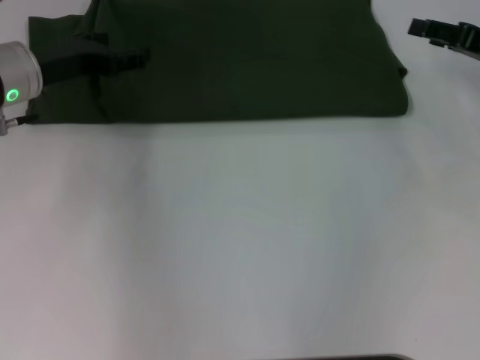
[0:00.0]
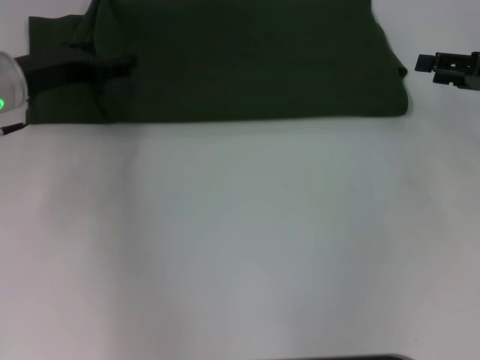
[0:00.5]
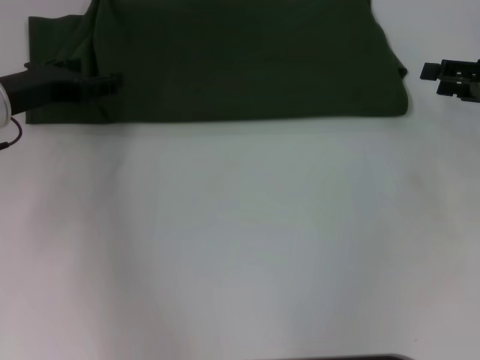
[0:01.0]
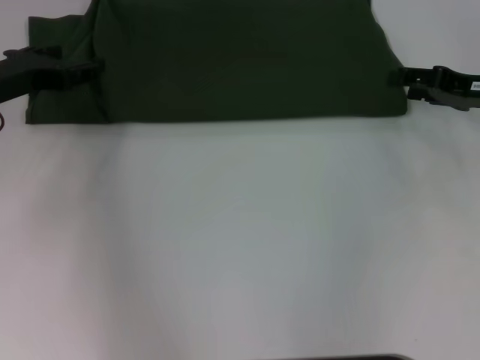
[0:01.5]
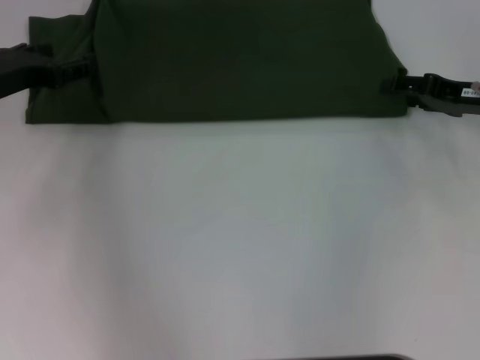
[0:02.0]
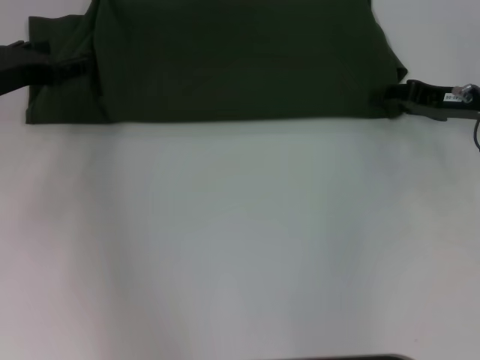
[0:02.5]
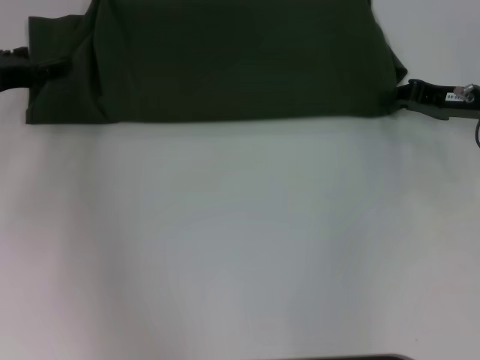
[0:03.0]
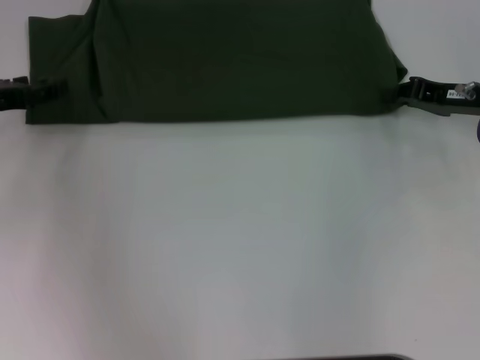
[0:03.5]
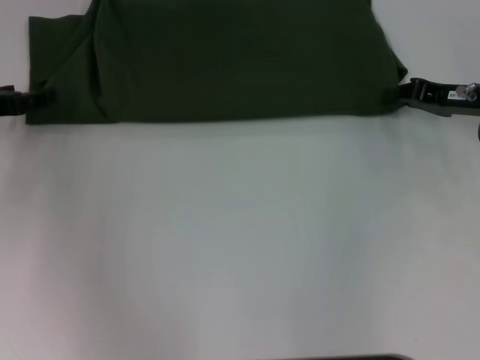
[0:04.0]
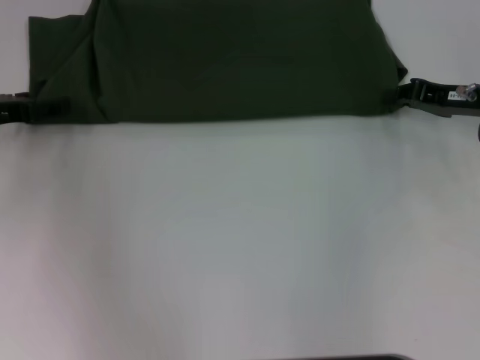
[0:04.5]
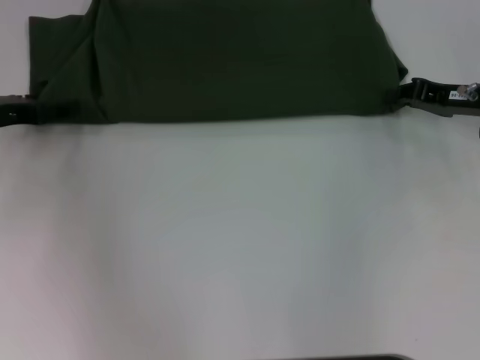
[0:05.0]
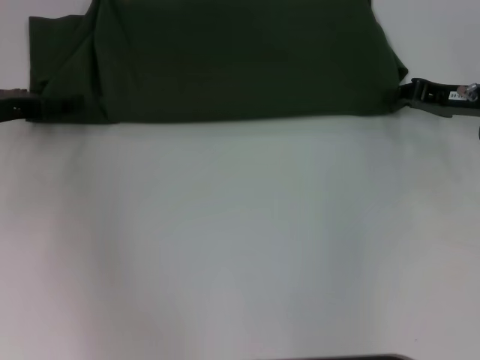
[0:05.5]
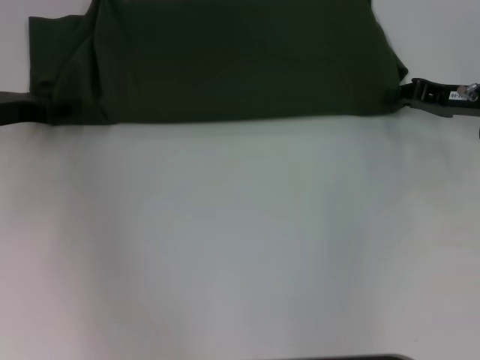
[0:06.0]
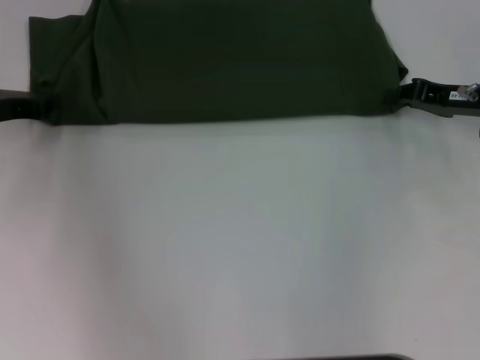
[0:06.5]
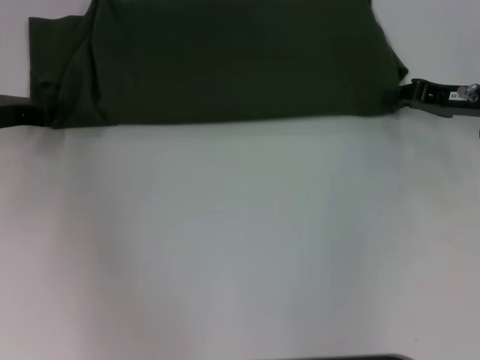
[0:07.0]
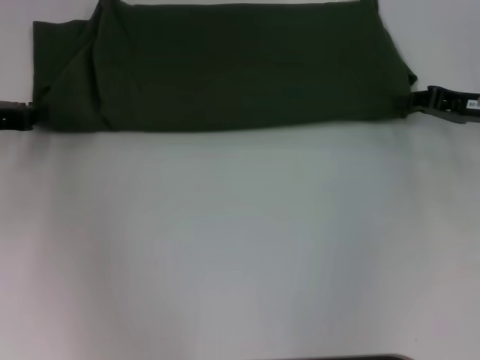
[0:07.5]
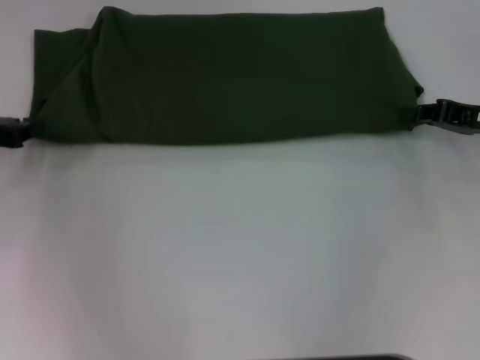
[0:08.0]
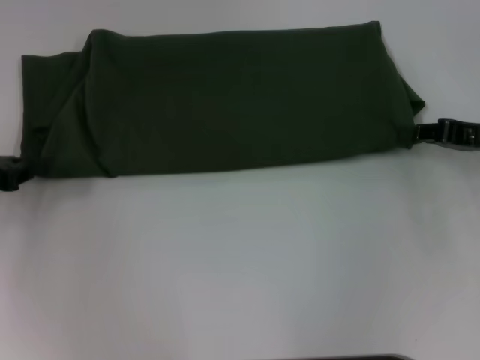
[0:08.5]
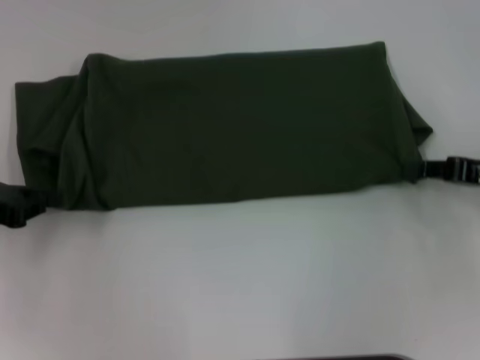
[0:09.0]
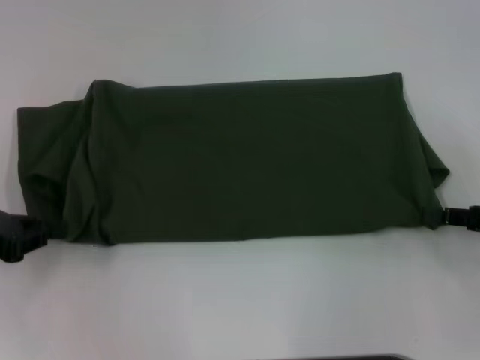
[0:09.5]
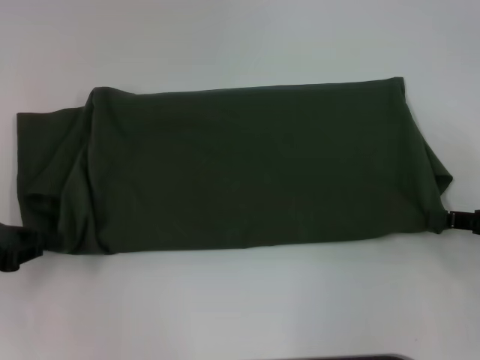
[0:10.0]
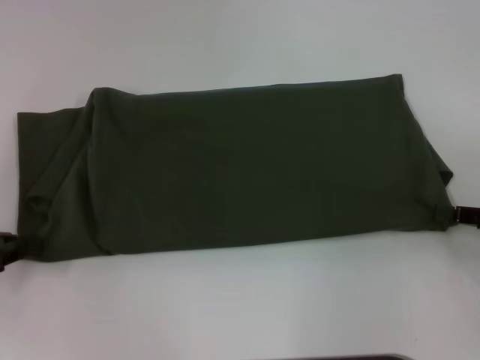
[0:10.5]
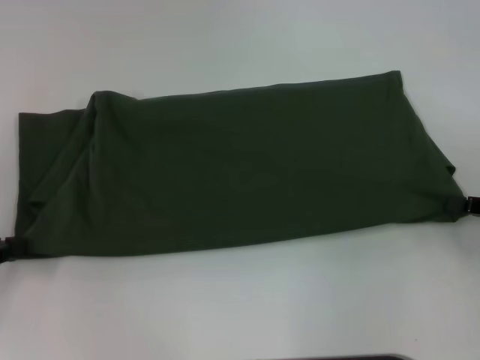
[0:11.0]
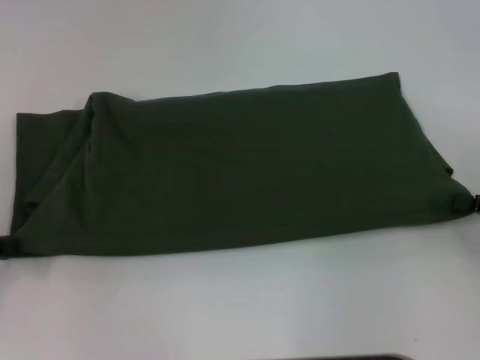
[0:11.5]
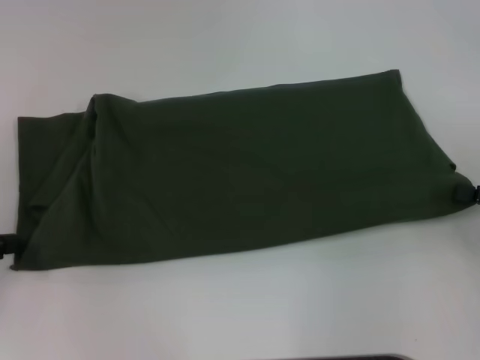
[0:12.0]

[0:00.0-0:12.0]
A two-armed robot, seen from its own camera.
0.0 to 2.0 s: The left gripper moves some 5 cm.
2.0 to 4.0 s: The right gripper closes up. The left gripper changes place by some 5 cm.
6.0 to 8.0 s: The left gripper closes its fingers.
8.0 to 10.0 s: Both grippers travel together backward, about 10 cm.
10.0 to 12.0 s: The grippers make only small movements.

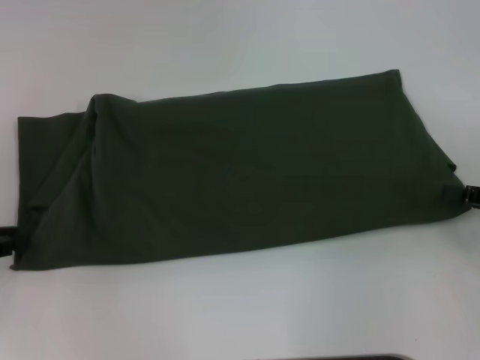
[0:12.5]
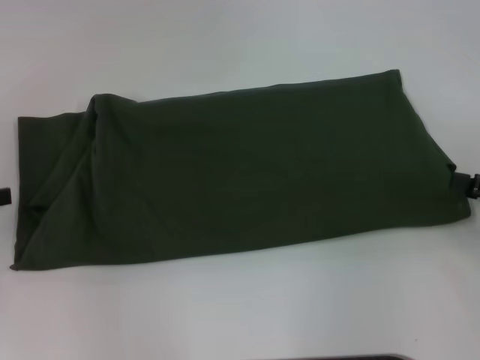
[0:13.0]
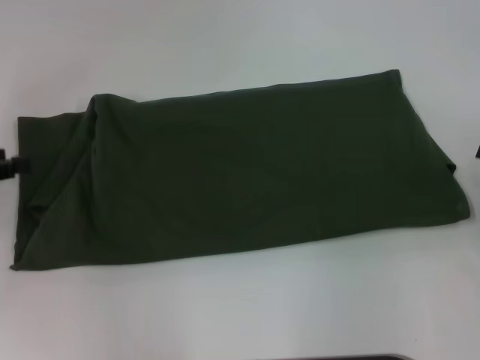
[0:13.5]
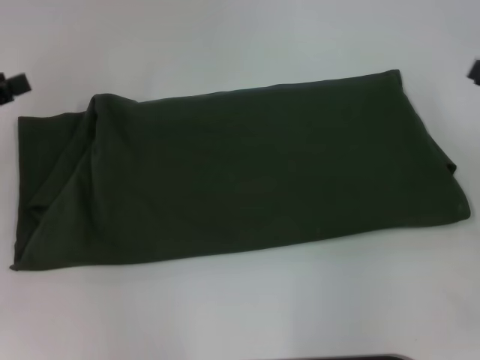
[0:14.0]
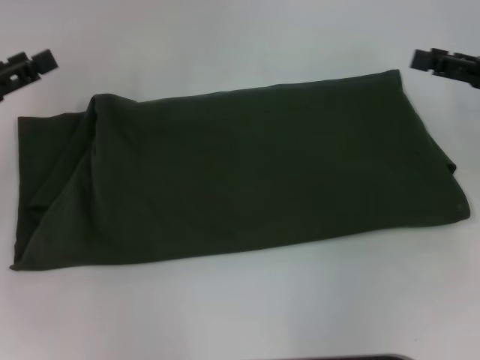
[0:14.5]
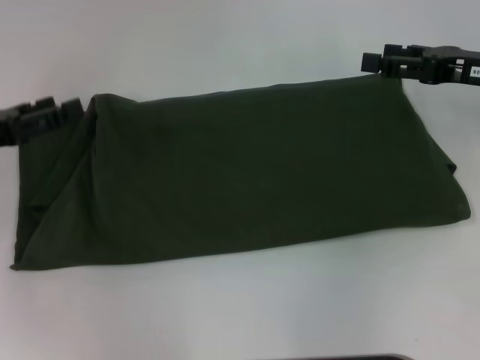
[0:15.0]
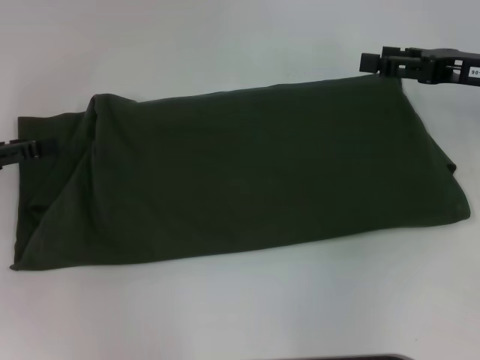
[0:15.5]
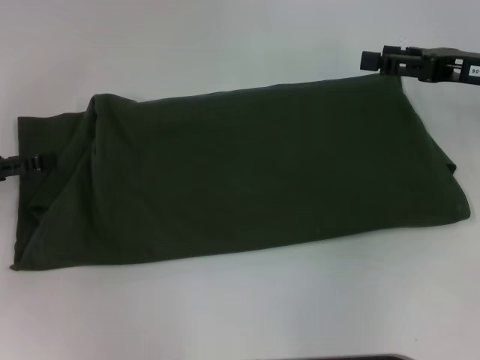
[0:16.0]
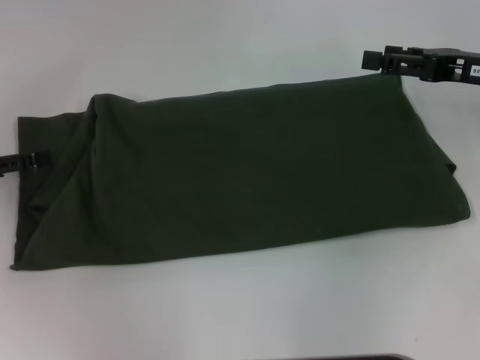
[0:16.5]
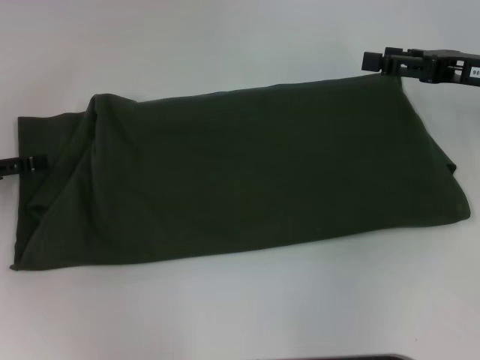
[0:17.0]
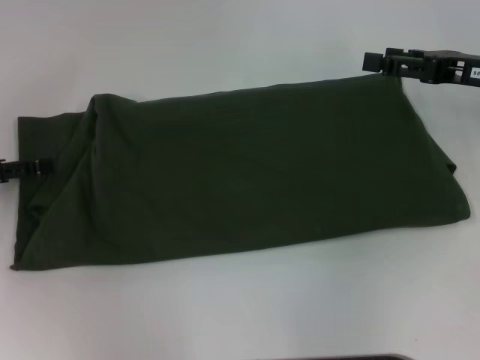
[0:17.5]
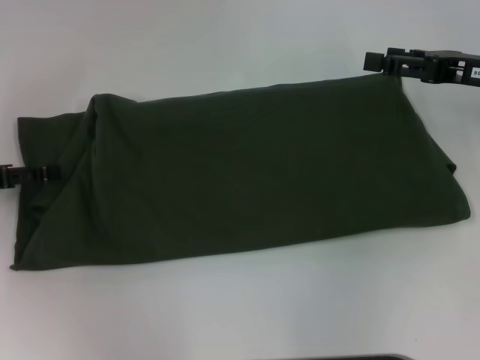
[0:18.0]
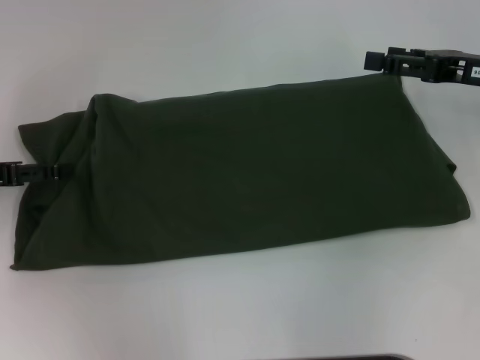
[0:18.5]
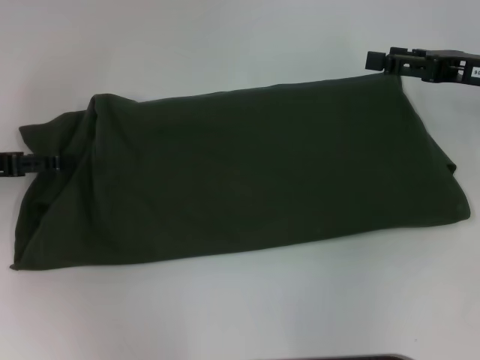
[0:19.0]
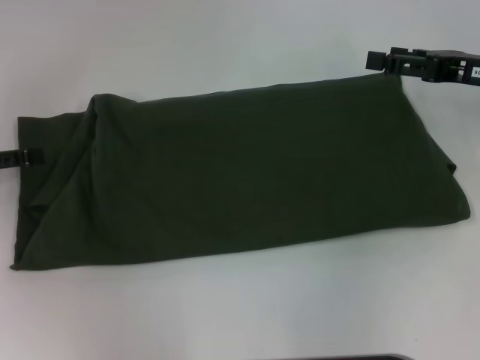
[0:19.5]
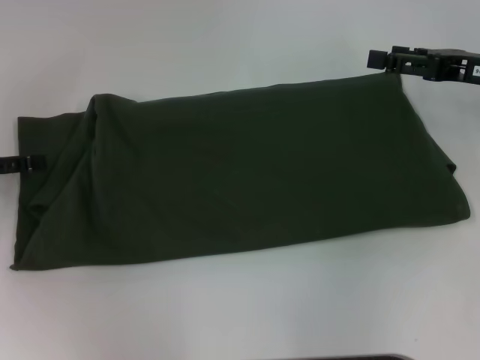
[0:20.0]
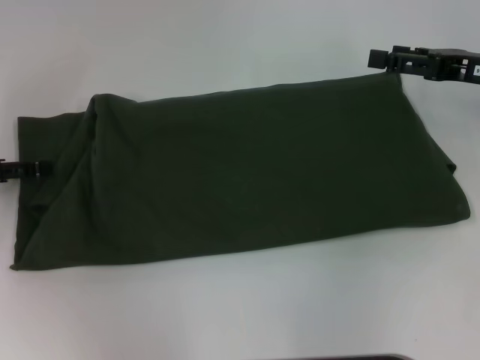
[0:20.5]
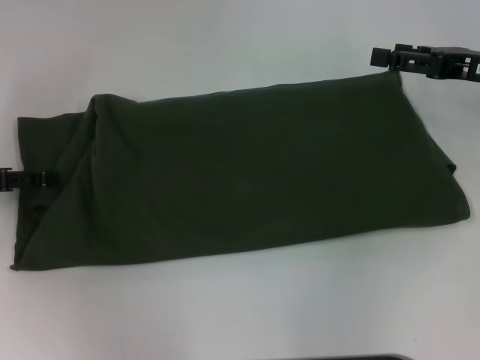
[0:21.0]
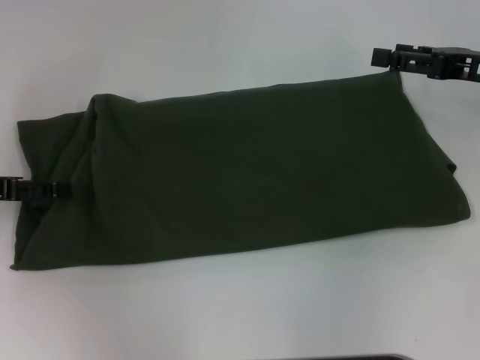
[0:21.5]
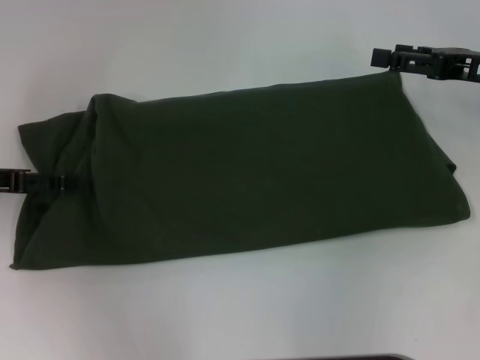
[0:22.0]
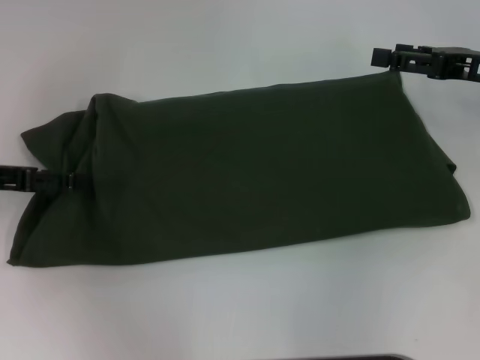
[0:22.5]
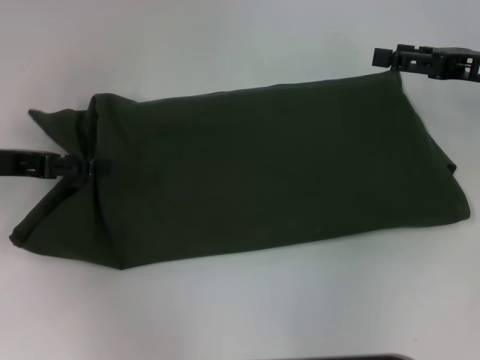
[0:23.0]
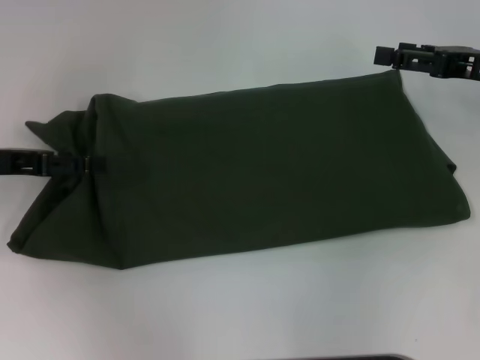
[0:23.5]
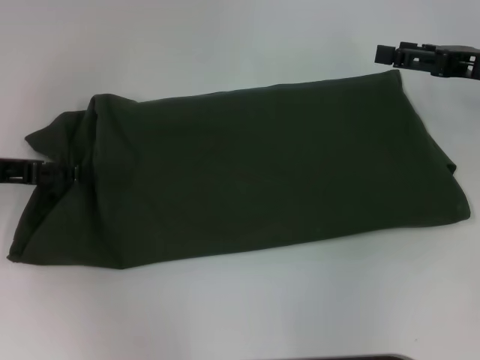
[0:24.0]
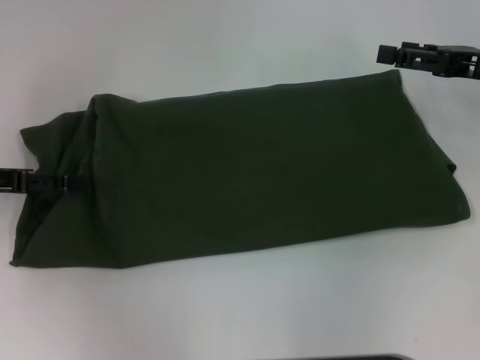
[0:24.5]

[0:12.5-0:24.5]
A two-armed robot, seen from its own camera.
12.5 to 14.5 s: The left gripper is displaced forward by roughly 5 cm, and opens its fingers; the right gripper shifts about 10 cm forward and upward, and opens up.
16.5 to 24.5 s: The grippers make only small movements.

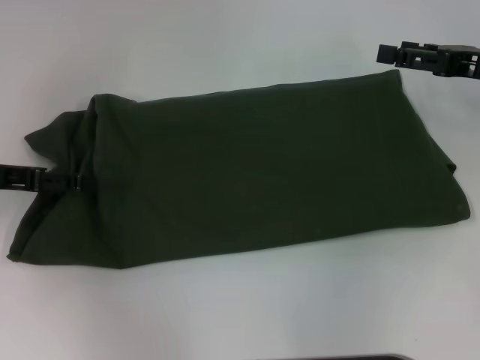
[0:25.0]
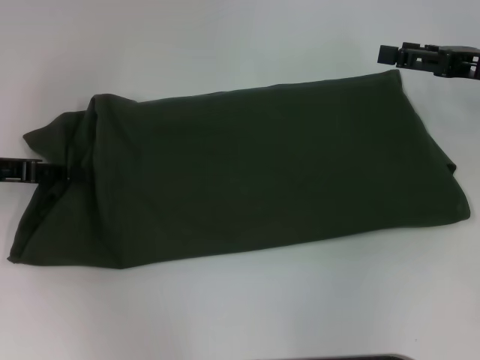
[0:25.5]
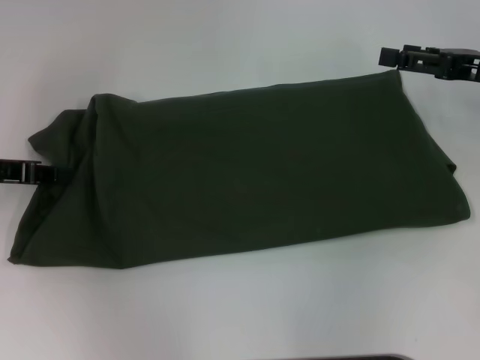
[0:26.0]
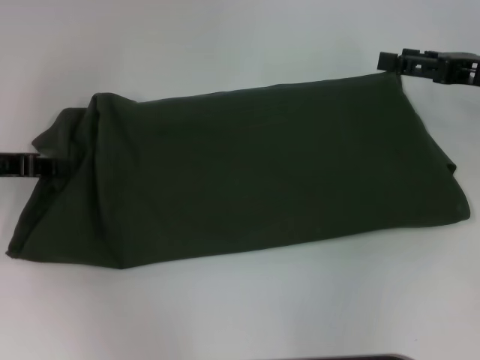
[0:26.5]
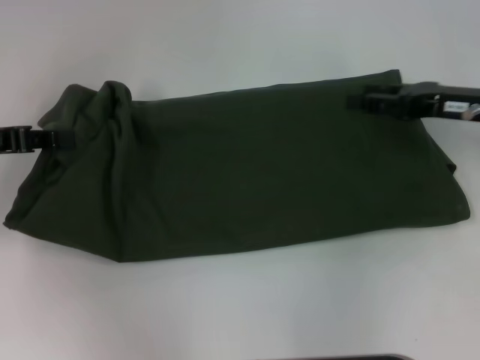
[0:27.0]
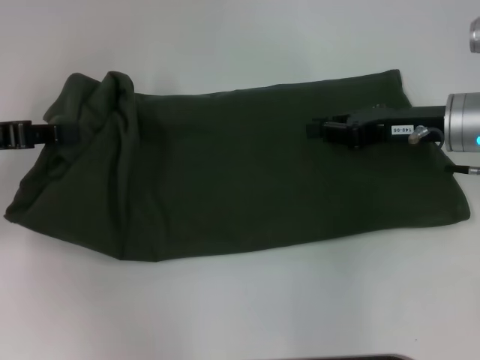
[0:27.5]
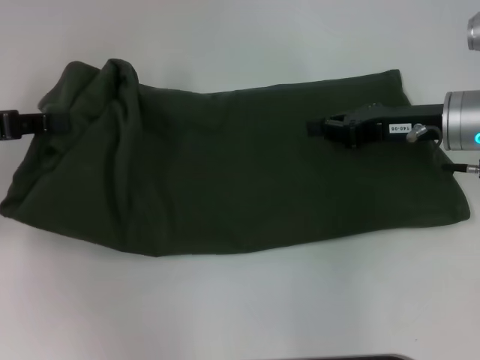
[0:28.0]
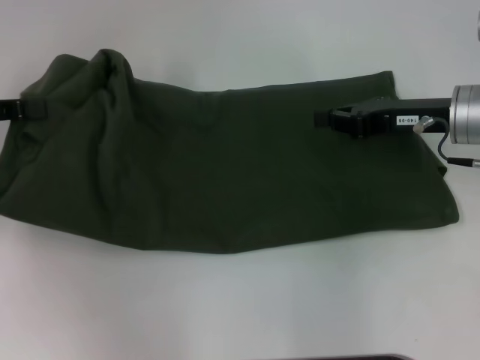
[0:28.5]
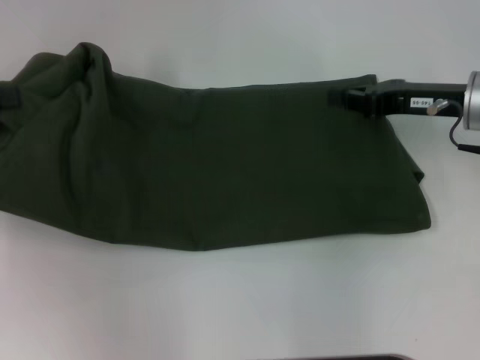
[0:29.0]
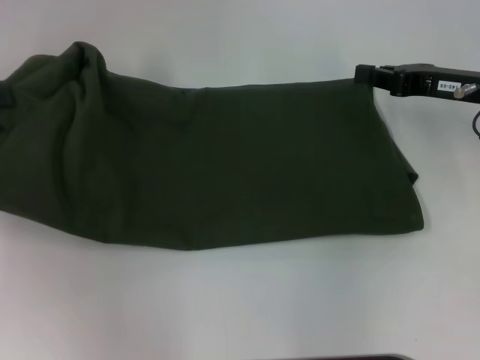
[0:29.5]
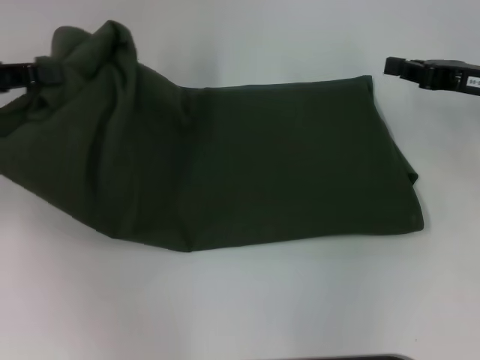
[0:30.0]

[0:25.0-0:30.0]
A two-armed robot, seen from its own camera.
25.0 to 27.5 s: The left gripper closes its fingers. Meanwhile the right gripper goes about 10 cm to the left, and closes up.
27.5 to 30.0 s: The right gripper travels to the right by about 5 cm.
